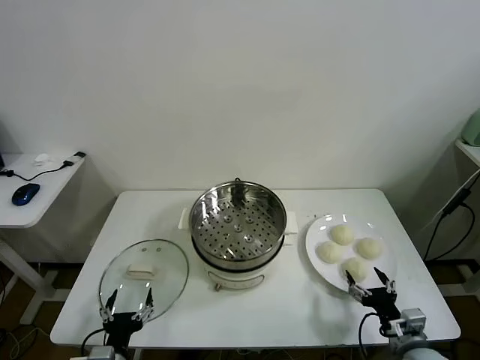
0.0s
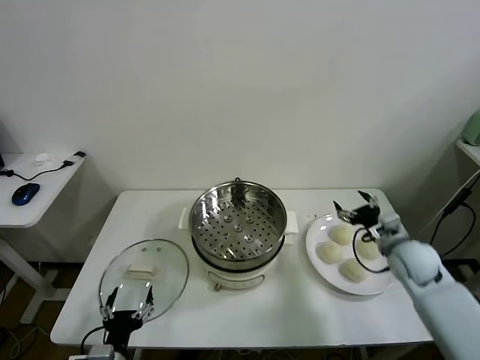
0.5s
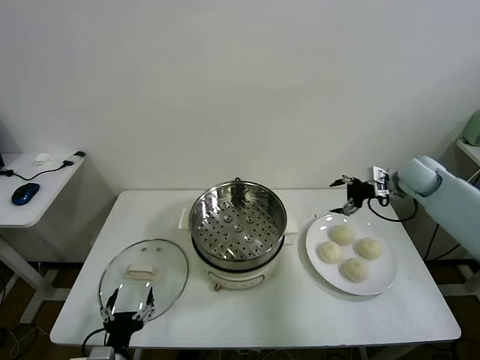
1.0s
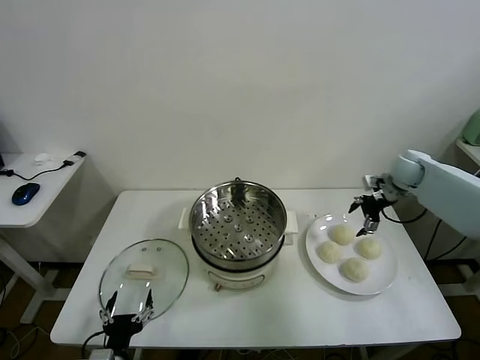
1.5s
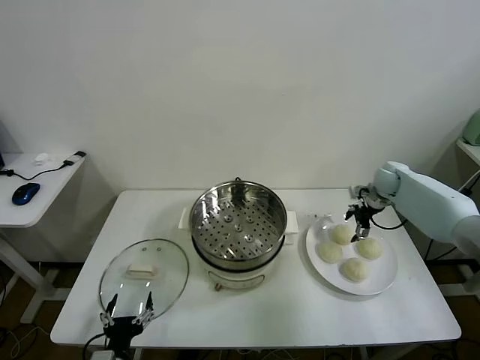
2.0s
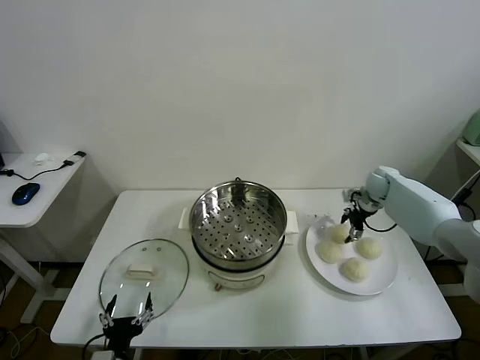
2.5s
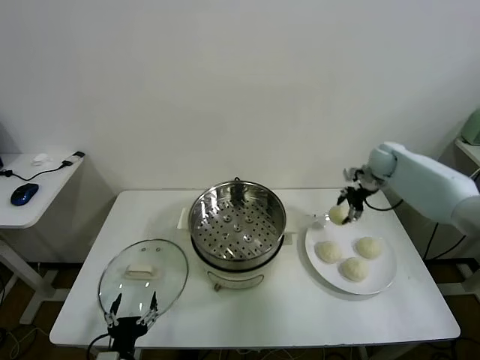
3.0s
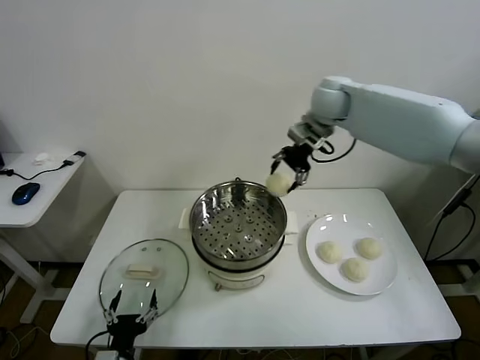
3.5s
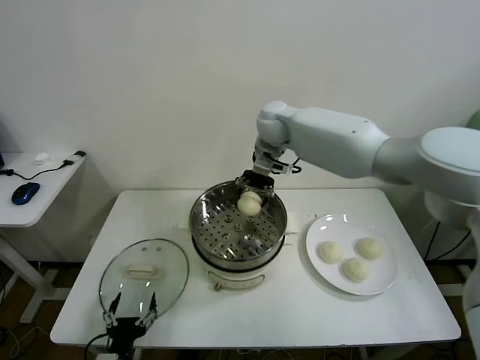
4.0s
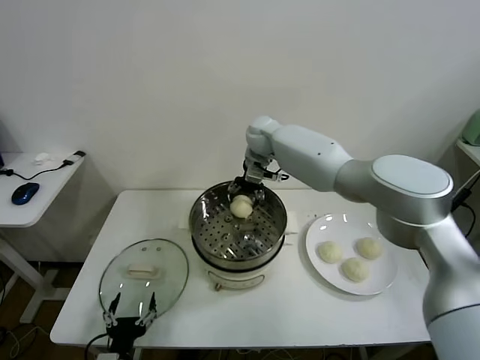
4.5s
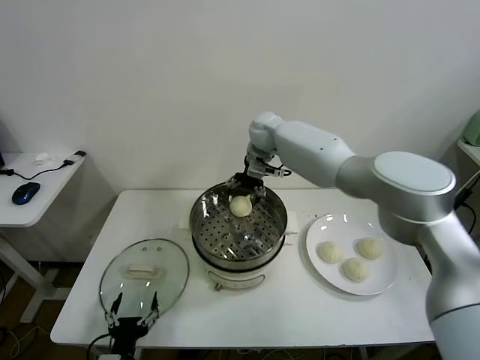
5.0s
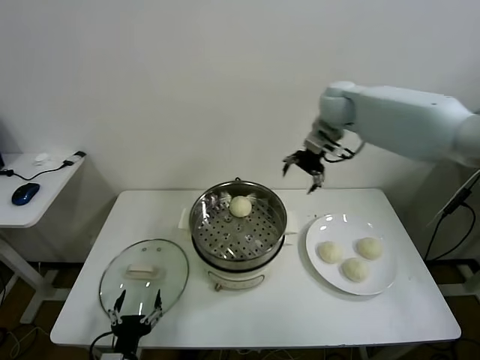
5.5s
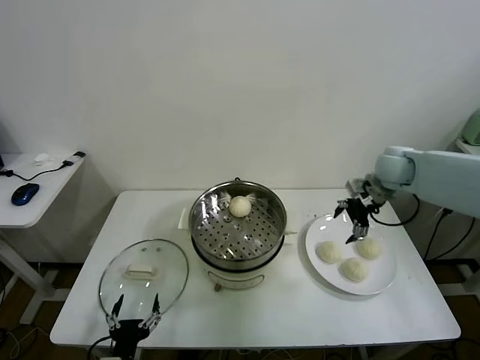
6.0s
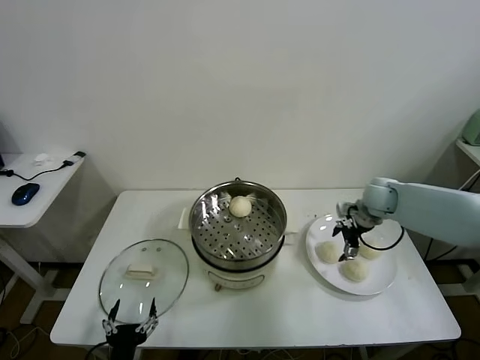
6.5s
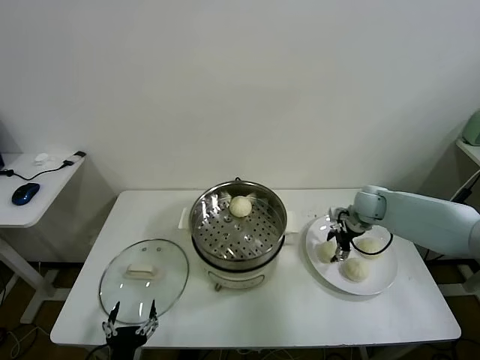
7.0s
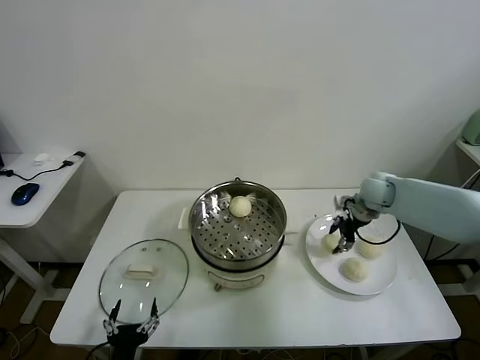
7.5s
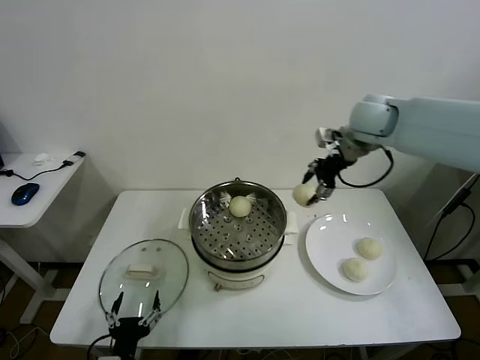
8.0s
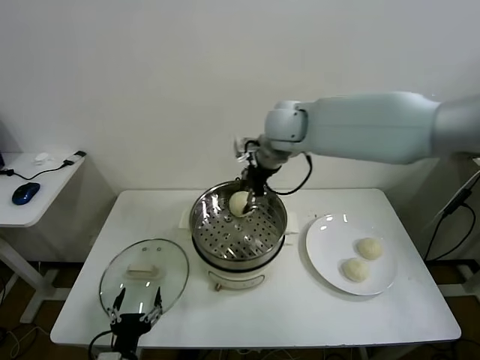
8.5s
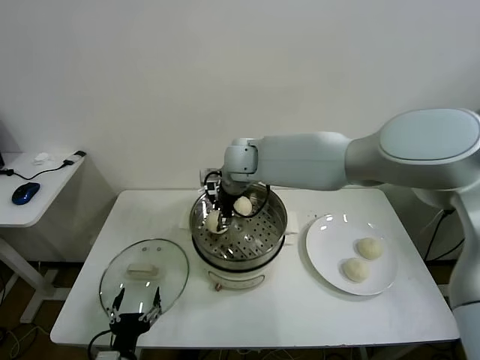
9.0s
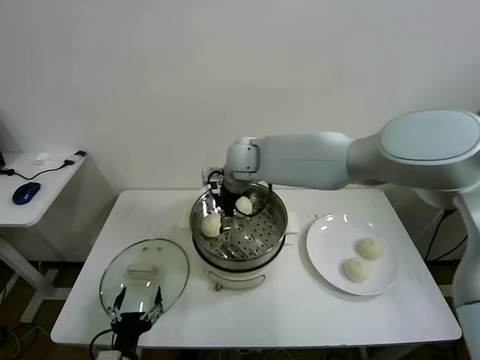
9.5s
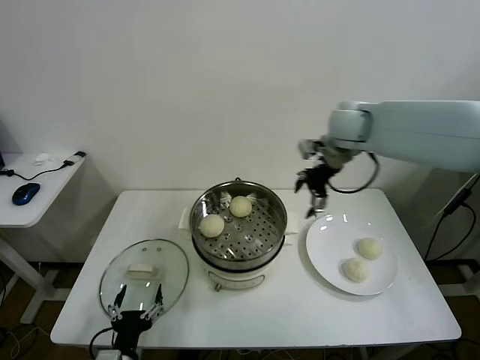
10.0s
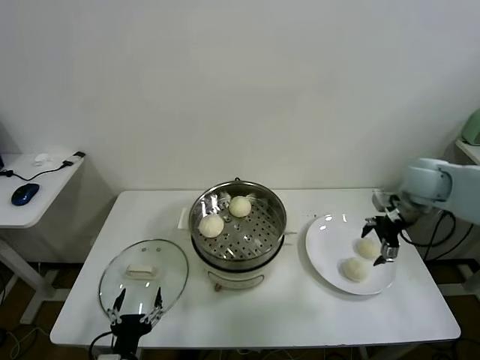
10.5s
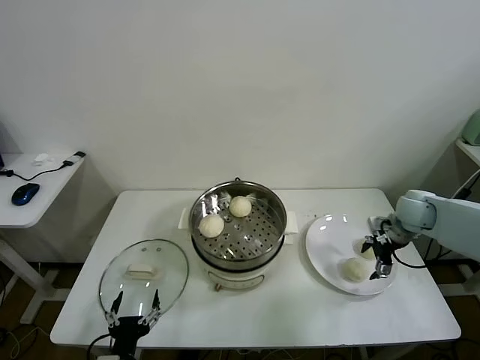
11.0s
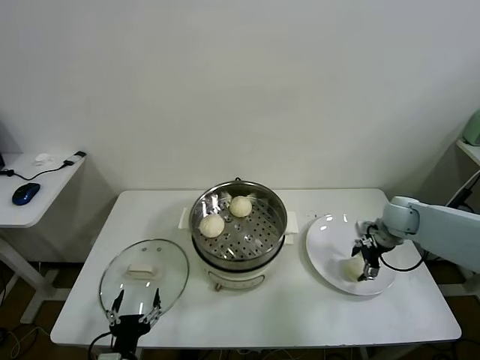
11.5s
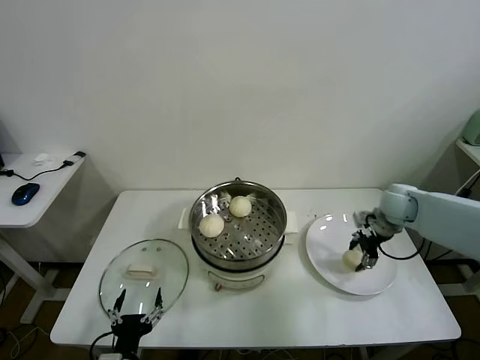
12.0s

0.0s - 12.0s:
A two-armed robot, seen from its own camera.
Task of the whole recording: take steamed baozi put them in steamer.
Step, 0.0s - 2.5s: Grasp the baozi in the plate with right gripper.
Step, 3.0s - 4.5s: Place the baozi on the steamer with right gripper.
Step, 5.5s - 7.0s: Grasp the baozi in the plate with right gripper.
Step, 7.5s - 9.5s: Place the baozi on the steamer with right gripper.
Step, 10.0s - 11.5s: Grasp the baozi in the plate with right gripper.
2.0s - 4.0s: The right gripper moves to the left and upward, some 40 cm, and closes up.
4.0s - 6.0s: The right gripper moves to the right, approximately 30 cm, and opens.
6.0s - 8.0s: The right gripper heads upward and to the left, covering some 20 cm, and closes.
8.0s - 10.0s: The right gripper moves roughly 25 cm to the left and comes back, and opens.
10.0s - 12.0s: The right gripper travels downward and to the right by some 20 cm, and closes up.

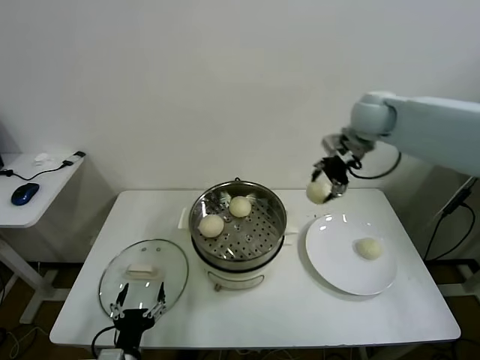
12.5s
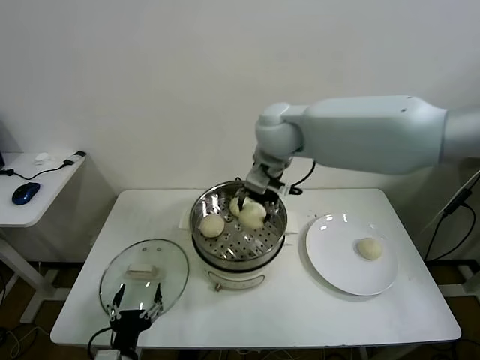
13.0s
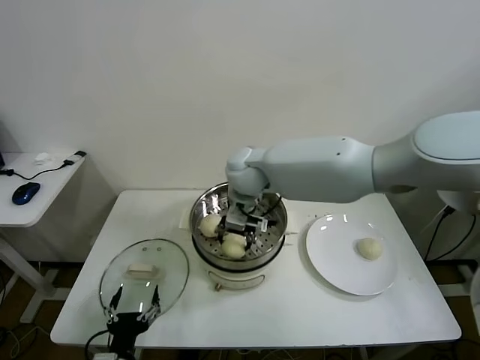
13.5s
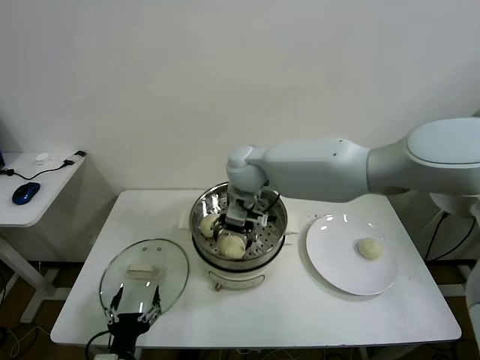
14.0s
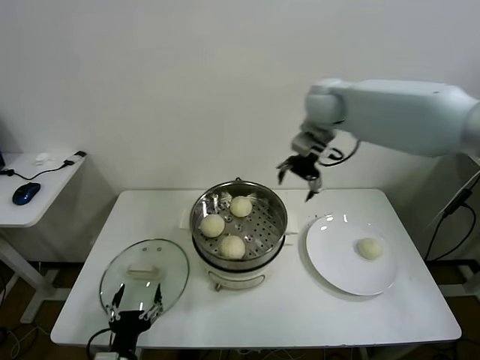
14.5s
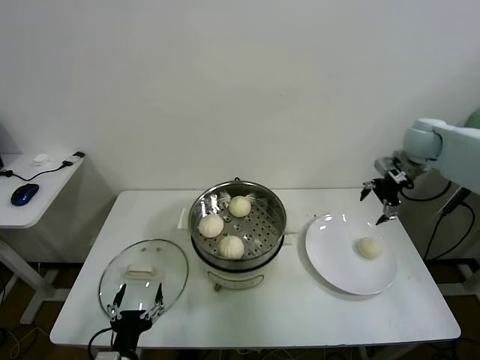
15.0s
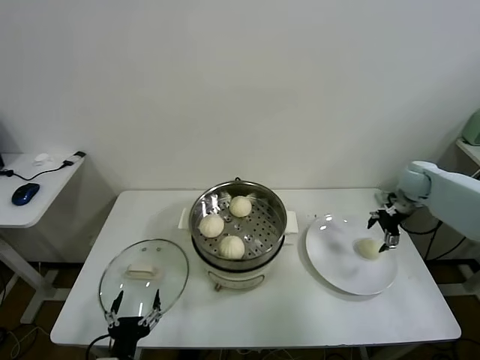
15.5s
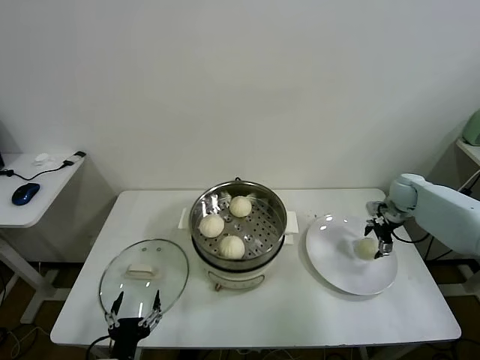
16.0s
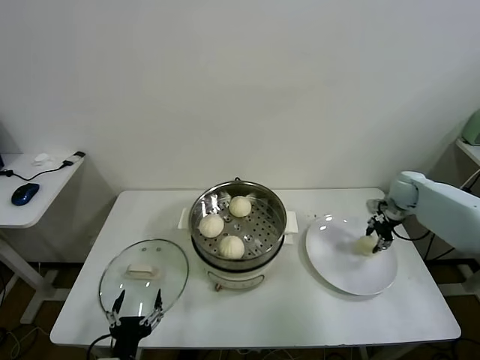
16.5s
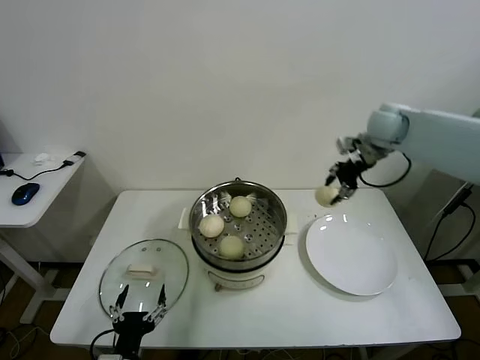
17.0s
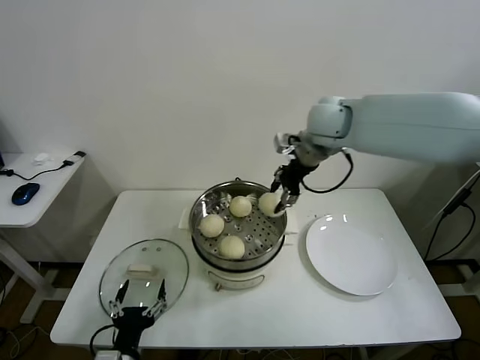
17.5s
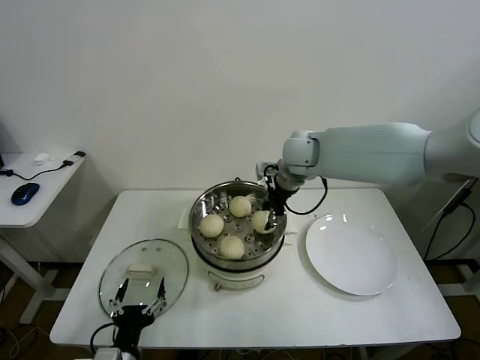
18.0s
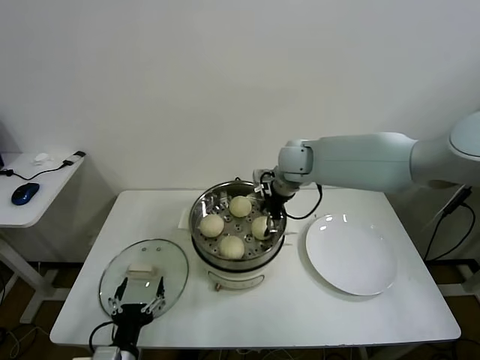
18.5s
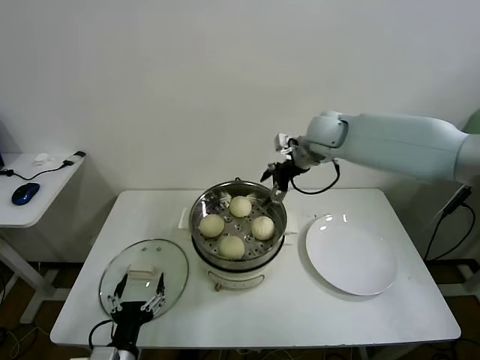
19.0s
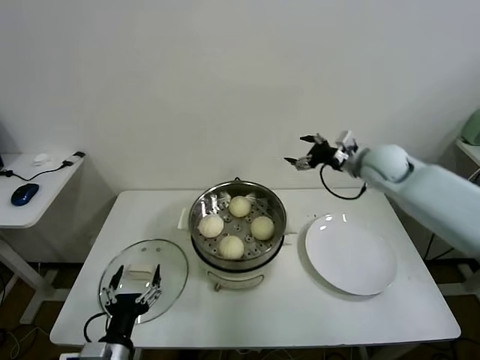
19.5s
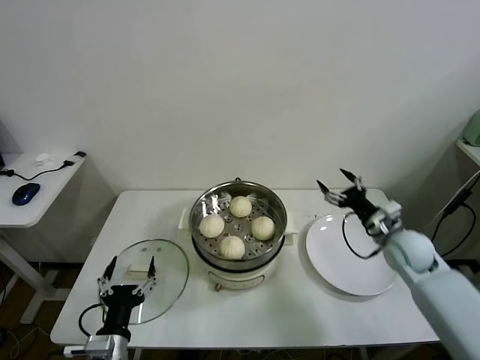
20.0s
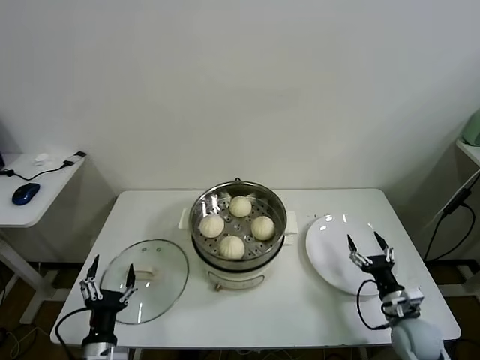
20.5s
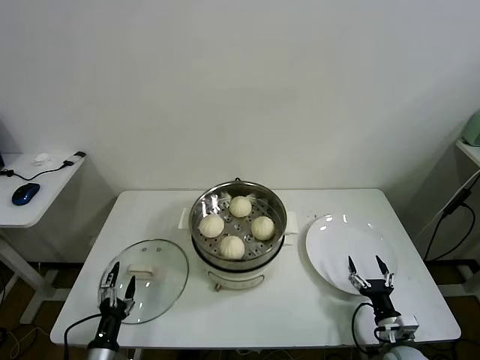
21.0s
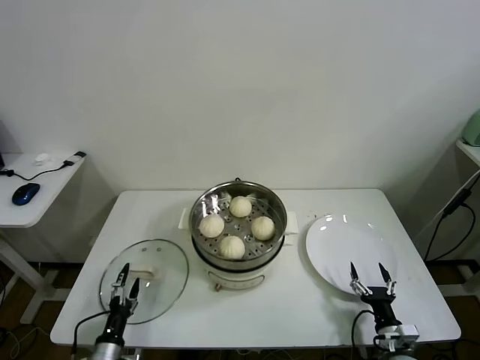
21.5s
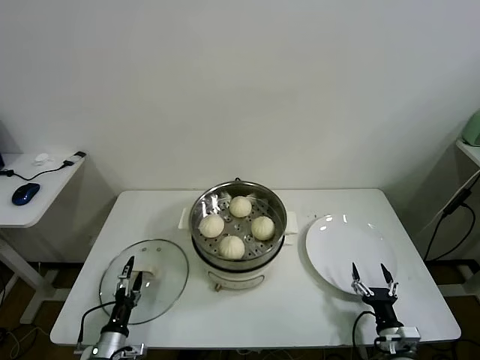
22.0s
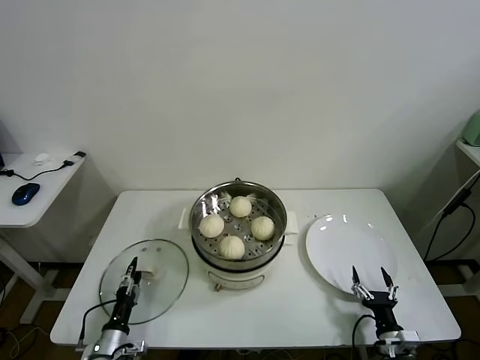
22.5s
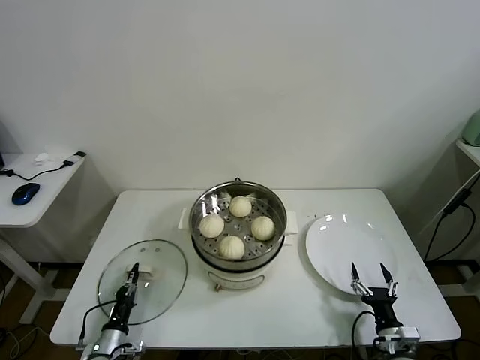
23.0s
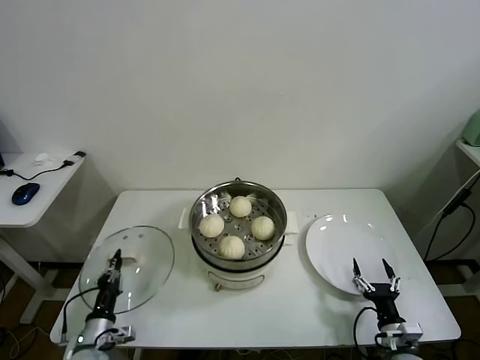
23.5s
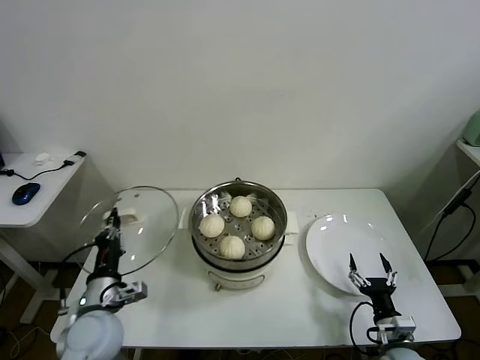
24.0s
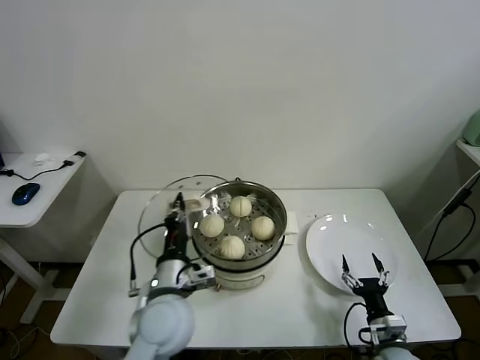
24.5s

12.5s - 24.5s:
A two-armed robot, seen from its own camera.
Task of the whole recording: take steamed baozi put them in steamer.
Step, 12.5s - 14.0s: Place the baozi on the steamer with right gripper.
Step, 14.5s - 16.0s: Grasp the baozi in the plate with right gripper.
Step, 16.5s - 18.5s: Place the baozi on the steamer with right gripper.
Step, 19.0s - 22.5s: Grasp the pot lid with left gripper.
12.5s - 14.5s: The right gripper goes to the left and returns, roughly 20 cm each way, and opens.
14.5s - 16.5s: The right gripper goes about 30 cm downward and to the right, and closes.
16.5s - 18.5s: The right gripper heads to the left, covering approximately 30 cm, and opens up.
18.5s - 20.5s: The left gripper changes place by about 5 cm. The right gripper goes approximately 50 cm downward, backward and to the right.
20.5s - 22.5s: The left gripper travels downward, forward and to the left by about 15 cm, and closes up, while the right gripper moves backward, roughly 5 cm.
22.5s - 24.5s: The right gripper shifts by about 5 cm. Meanwhile the left gripper shifts roughly 30 cm upward and to the right, and closes.

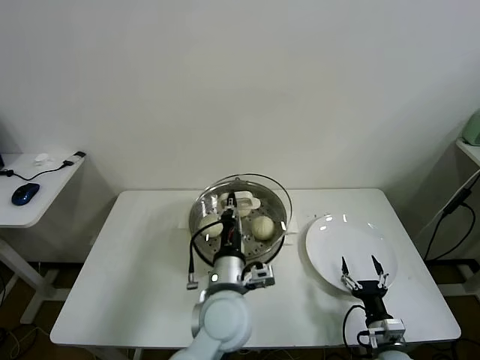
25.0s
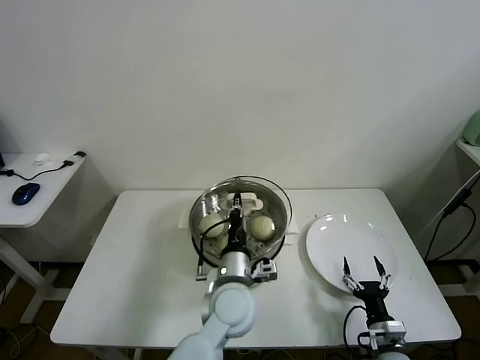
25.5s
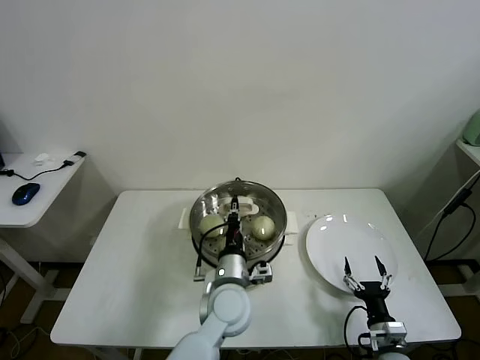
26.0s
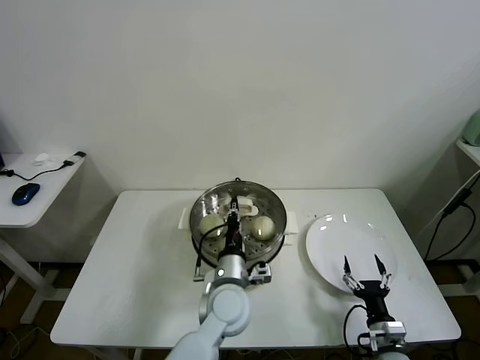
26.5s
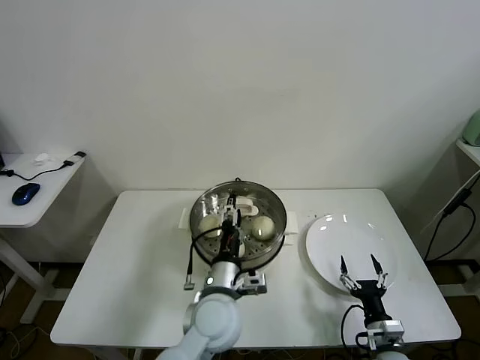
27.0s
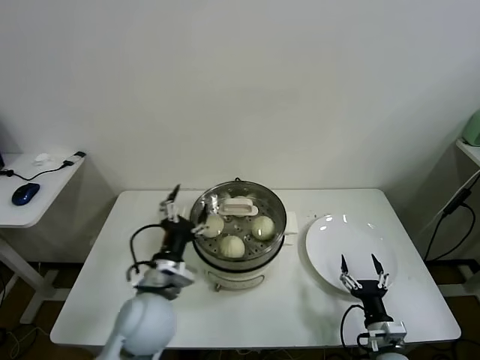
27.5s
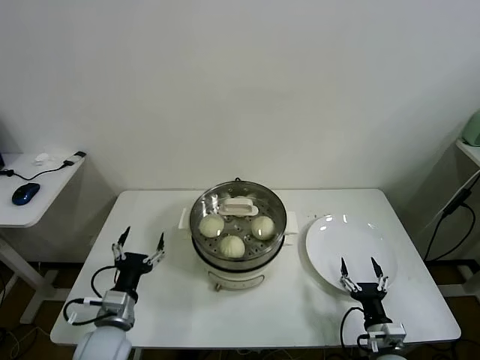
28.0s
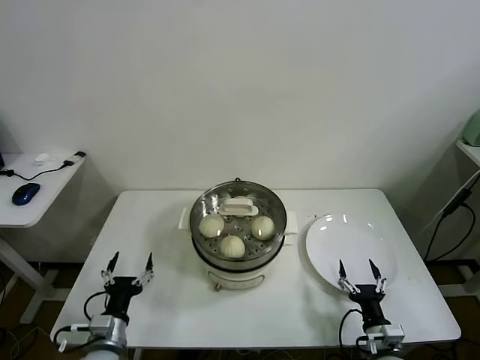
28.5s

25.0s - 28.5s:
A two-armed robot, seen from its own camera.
Task of the whole recording: take steamed baozi put them in steamer.
Step, 25.0s - 27.0s: Place the pot lid on the steamer with left gripper.
25.0s - 27.0s: The left gripper opens its fingers.
27.0s - 28.5s: The left gripper shifts about 25 cm to the left and downward.
